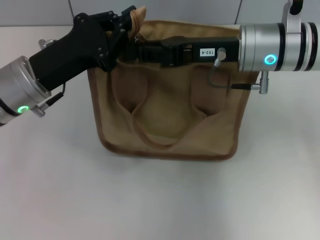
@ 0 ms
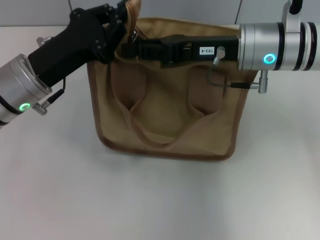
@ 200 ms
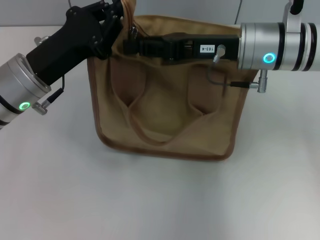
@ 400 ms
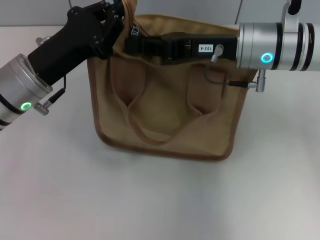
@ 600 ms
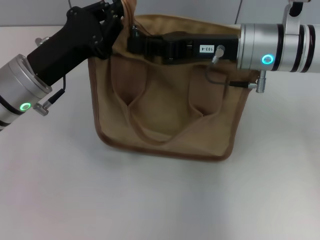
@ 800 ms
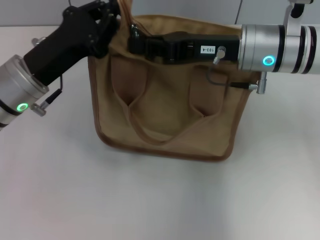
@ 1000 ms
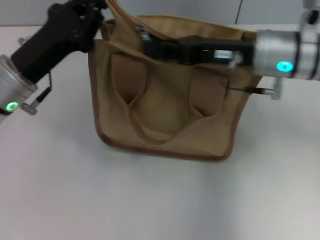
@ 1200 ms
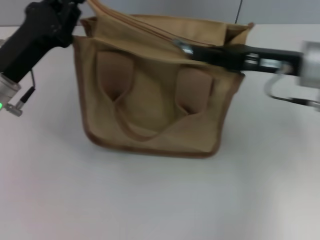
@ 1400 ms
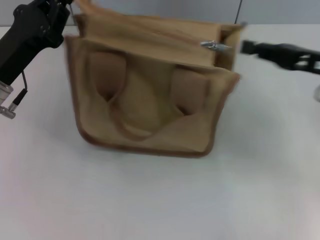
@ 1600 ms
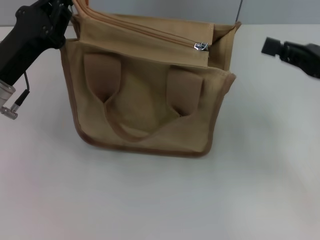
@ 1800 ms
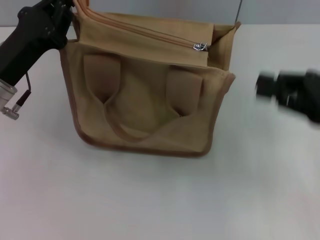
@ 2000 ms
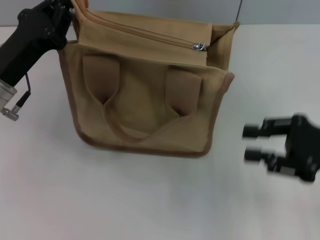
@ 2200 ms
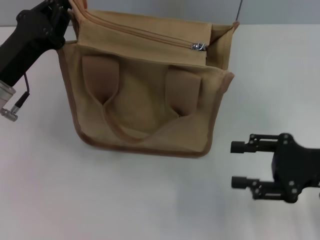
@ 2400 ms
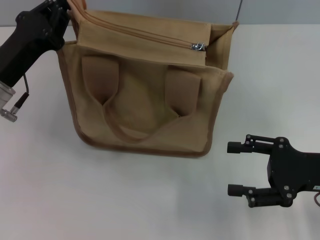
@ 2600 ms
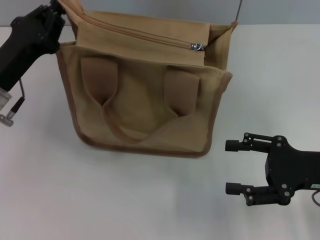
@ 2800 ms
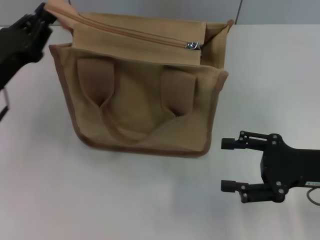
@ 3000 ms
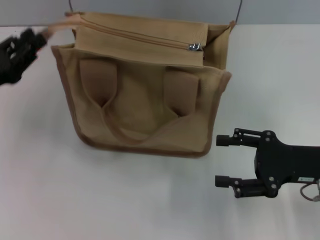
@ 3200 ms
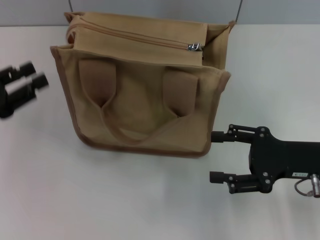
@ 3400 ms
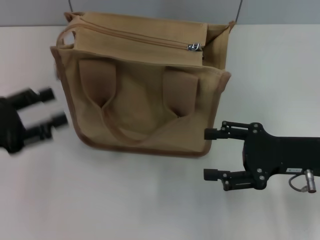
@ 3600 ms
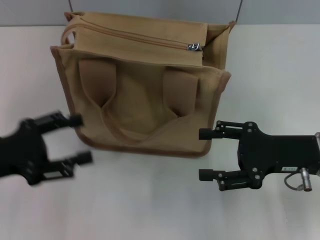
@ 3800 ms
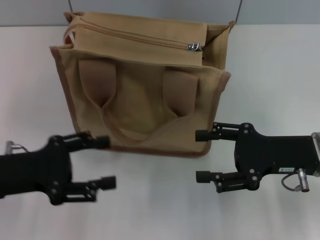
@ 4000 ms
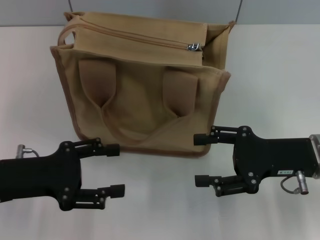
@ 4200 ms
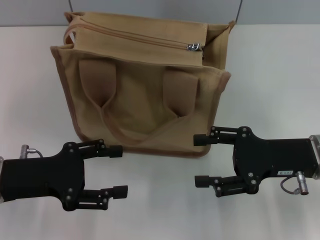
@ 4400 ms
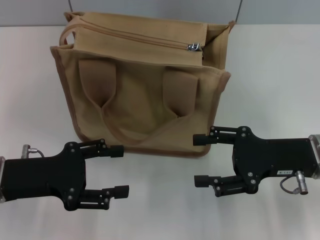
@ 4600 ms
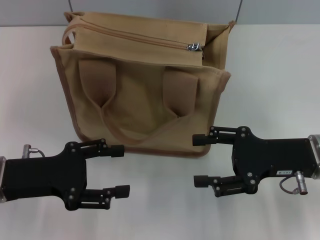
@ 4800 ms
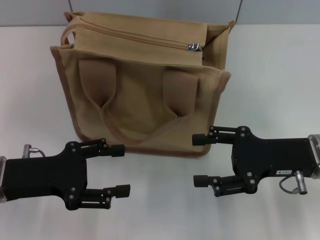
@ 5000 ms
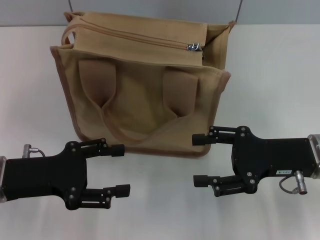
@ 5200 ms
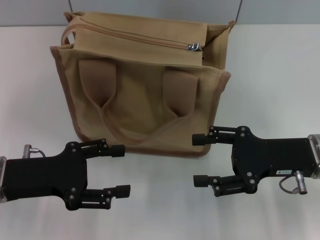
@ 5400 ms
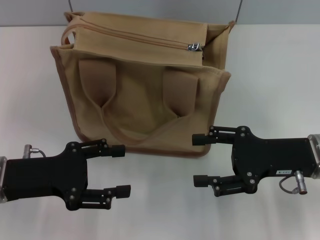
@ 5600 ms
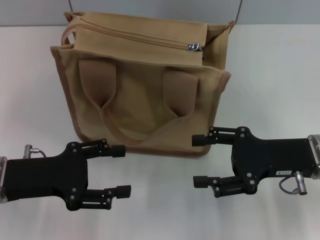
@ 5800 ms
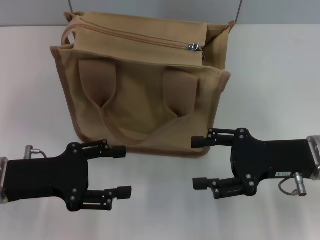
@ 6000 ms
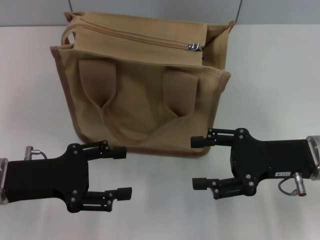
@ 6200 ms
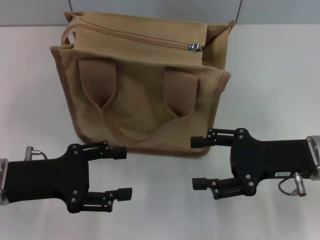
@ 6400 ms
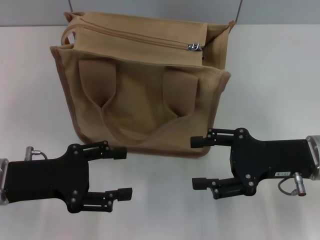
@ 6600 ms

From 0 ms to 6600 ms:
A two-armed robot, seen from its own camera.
Step, from 1800 ms to 3200 ms: Grab the zipper with your left hand.
From 0 ms to 1600 ms: The right gripper travels to the right by some 15 cm, and closes up.
From 1600 ms to 3200 ms: The left gripper moves to the left, roughly 10 cm, while the right gripper is displaced backward and downward by some 10 cm, and opens its fingers.
From 3200 ms to 5000 ms: The left gripper is displaced to the right by approximately 5 cm, and opens up.
From 5000 ms to 6600 ms: The two grippers keep their place.

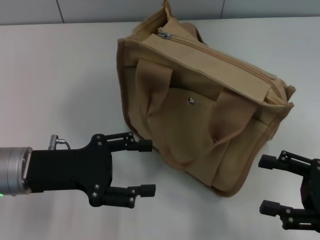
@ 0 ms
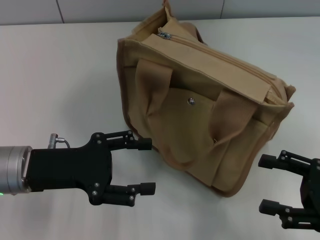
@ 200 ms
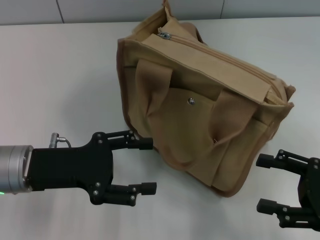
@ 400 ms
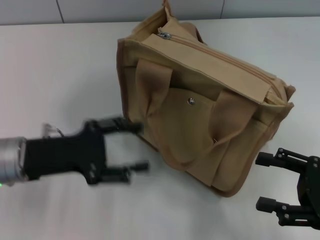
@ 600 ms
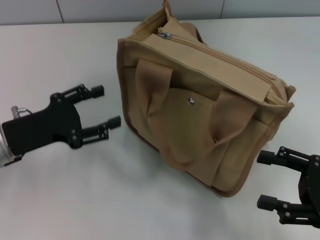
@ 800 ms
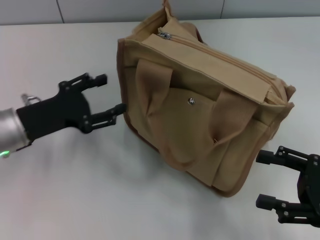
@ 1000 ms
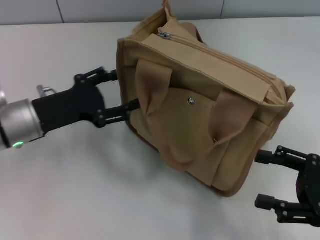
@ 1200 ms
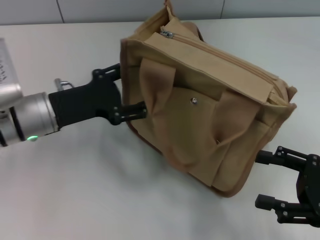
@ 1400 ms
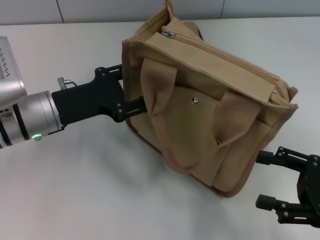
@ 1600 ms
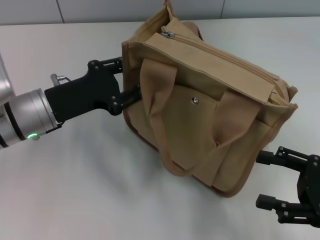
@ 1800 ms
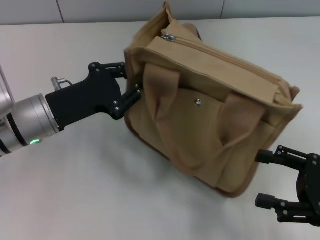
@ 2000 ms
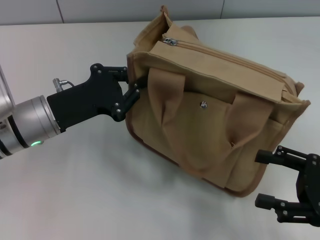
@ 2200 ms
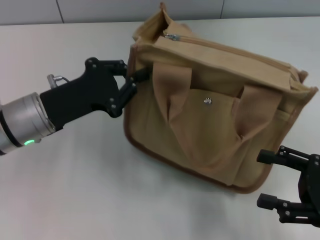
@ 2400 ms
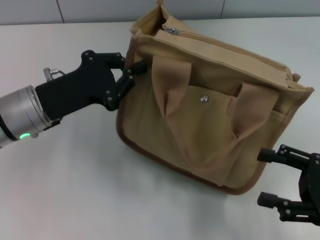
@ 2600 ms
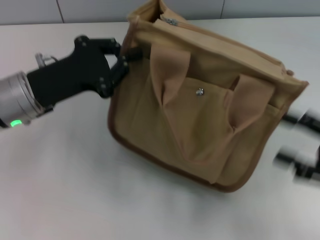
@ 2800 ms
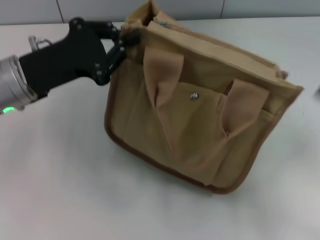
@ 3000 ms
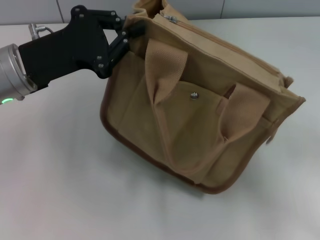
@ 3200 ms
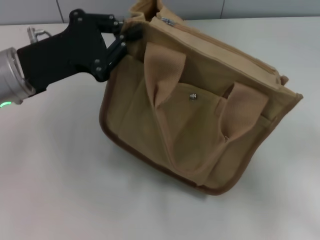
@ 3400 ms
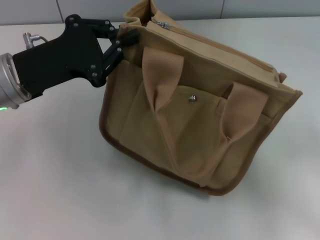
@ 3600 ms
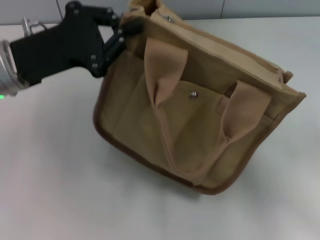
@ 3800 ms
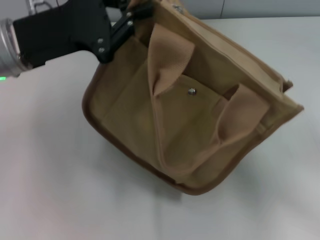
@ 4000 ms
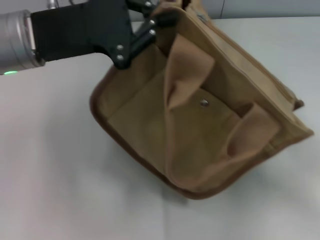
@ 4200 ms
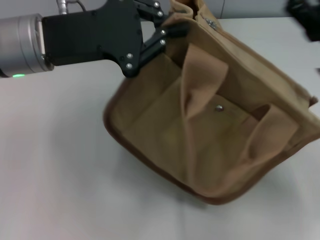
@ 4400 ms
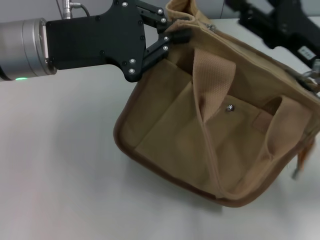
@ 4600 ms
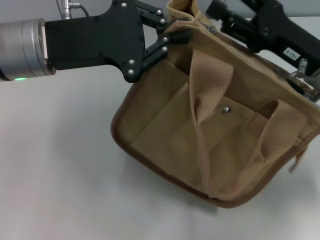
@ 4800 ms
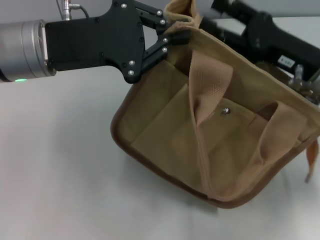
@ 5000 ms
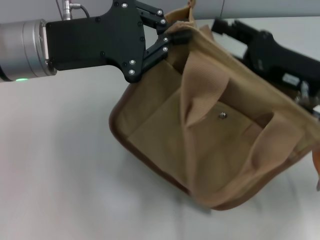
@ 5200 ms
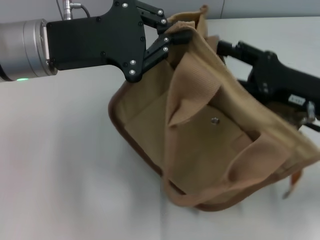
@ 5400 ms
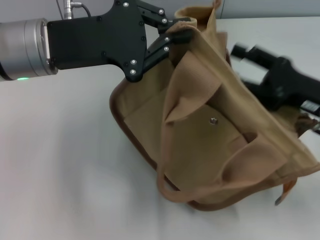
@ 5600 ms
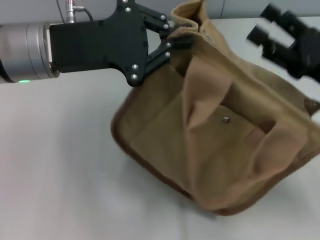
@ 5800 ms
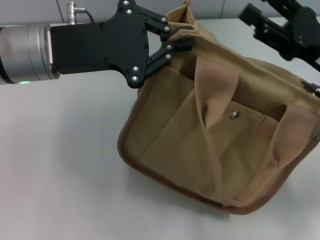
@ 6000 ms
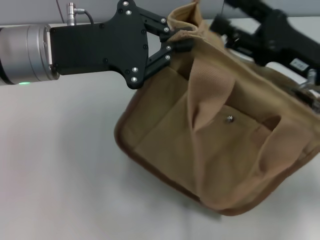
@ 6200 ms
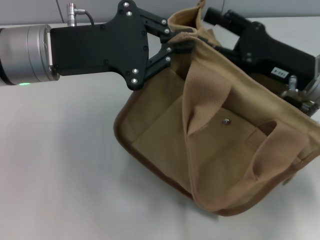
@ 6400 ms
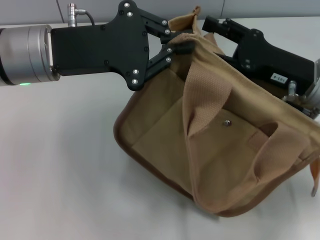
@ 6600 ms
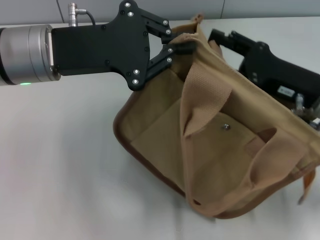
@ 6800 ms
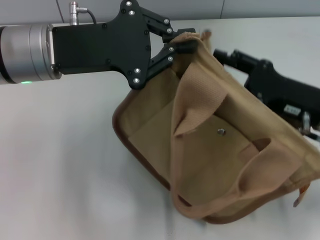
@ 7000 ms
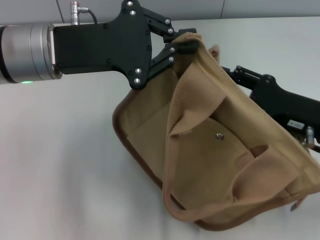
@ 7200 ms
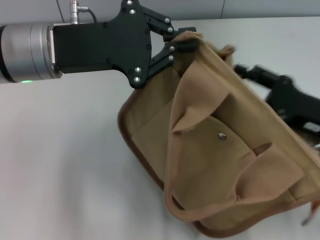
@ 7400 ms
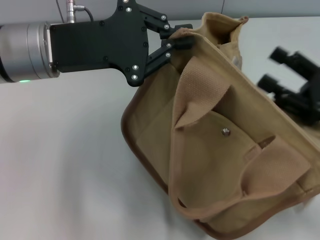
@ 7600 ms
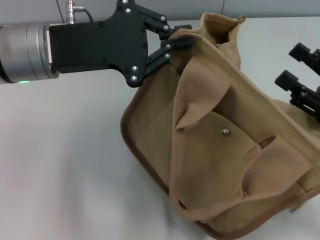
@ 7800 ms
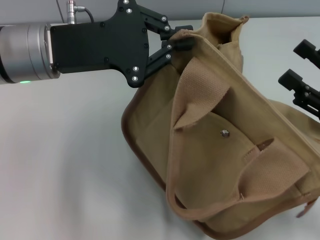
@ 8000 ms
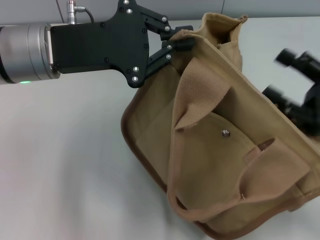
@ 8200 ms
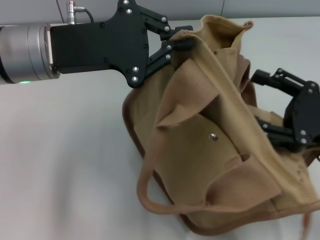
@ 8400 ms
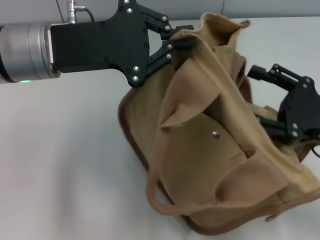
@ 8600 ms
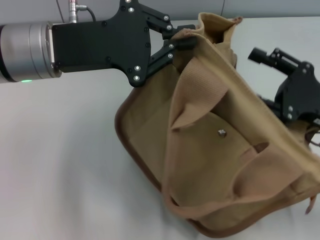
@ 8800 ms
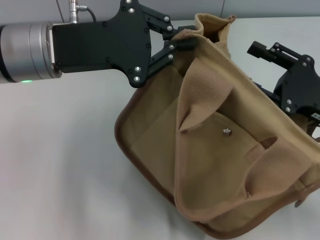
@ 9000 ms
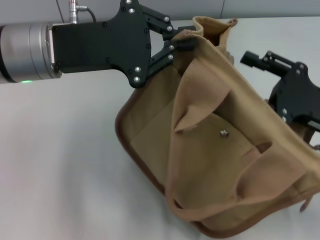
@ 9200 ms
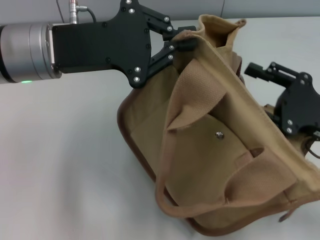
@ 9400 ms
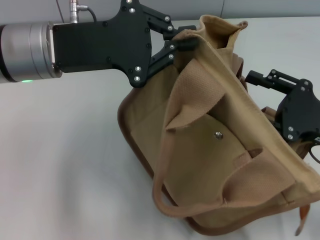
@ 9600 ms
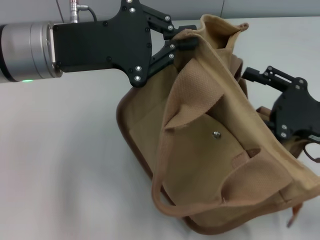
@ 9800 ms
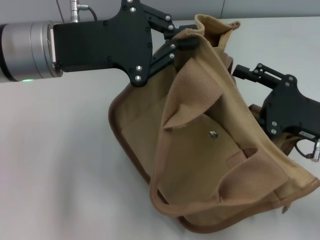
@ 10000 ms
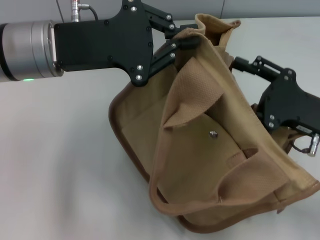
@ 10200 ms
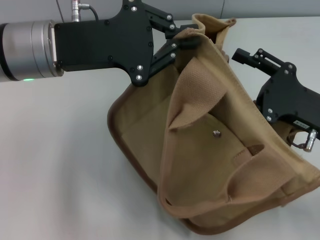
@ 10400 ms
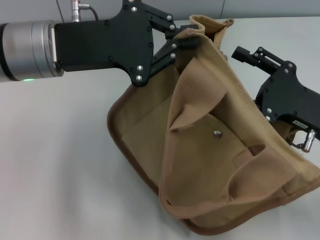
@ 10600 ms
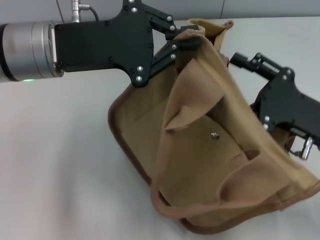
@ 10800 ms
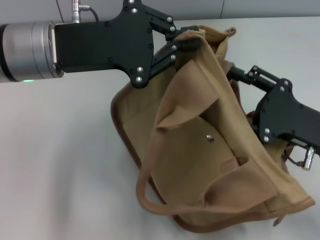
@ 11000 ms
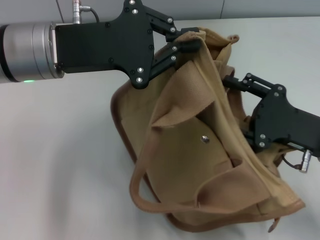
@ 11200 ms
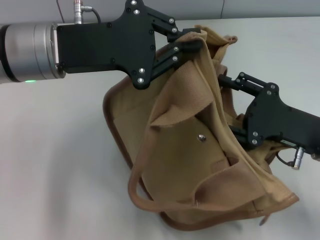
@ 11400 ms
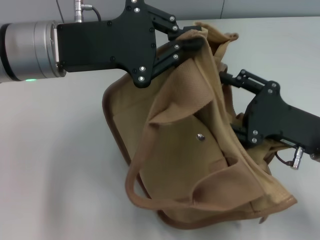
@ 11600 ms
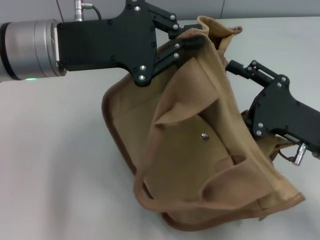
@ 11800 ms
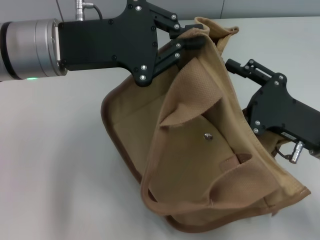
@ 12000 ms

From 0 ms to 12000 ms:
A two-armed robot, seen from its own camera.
From 0 ms to 1600 ms: The left gripper goes about 5 cm forward.
From 1600 ms to 3000 ms: The left gripper shifts roughly 5 cm upward, and closes.
From 3000 ms to 4400 ms: The left gripper is displaced upward by some 5 cm. The right gripper moves forward and to the left, about 10 cm.
From 6000 ms to 7600 ms: The right gripper travels backward by approximately 5 cm.
From 7600 ms to 9000 ms: The grippers make only small movements.
From 9000 ms to 12000 ms: The grippers move only a little.

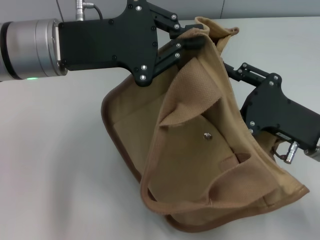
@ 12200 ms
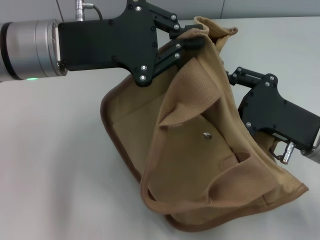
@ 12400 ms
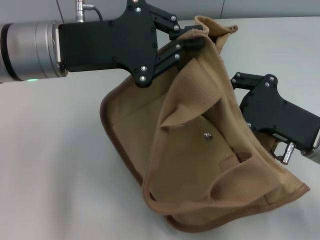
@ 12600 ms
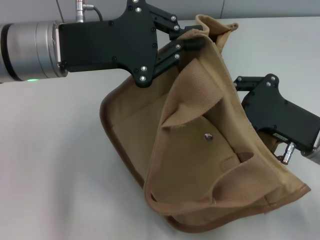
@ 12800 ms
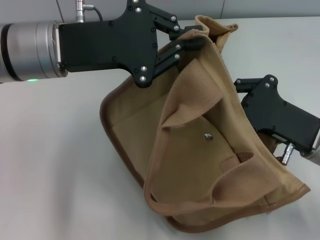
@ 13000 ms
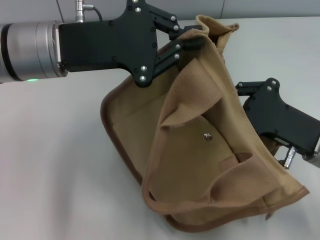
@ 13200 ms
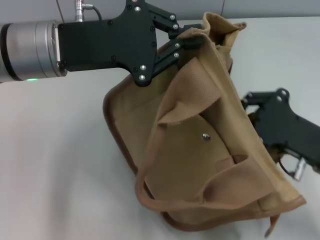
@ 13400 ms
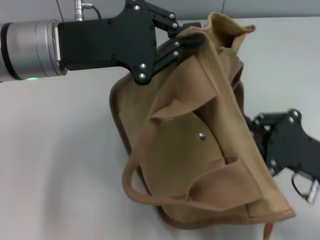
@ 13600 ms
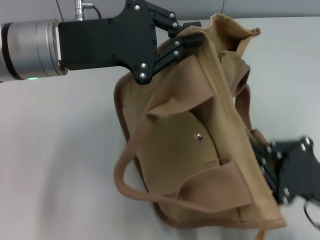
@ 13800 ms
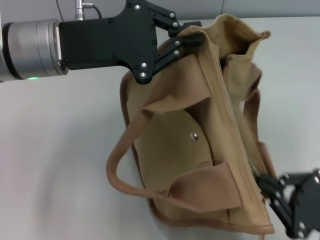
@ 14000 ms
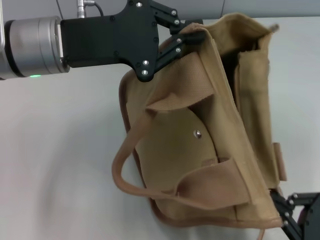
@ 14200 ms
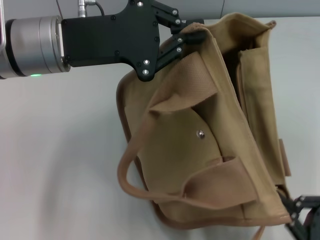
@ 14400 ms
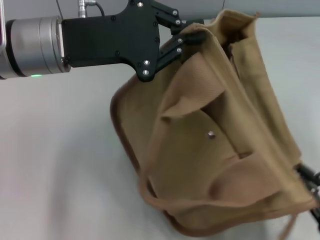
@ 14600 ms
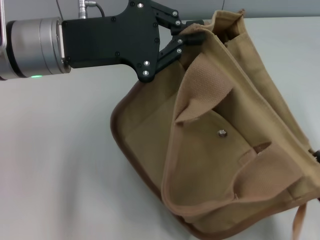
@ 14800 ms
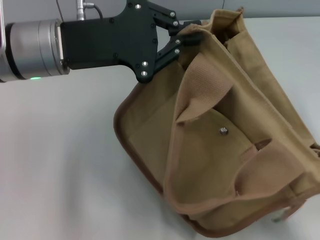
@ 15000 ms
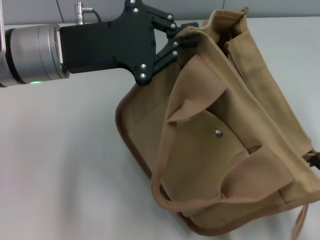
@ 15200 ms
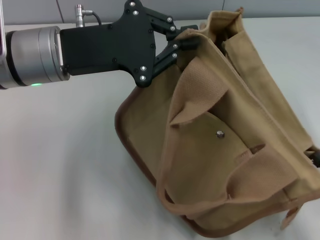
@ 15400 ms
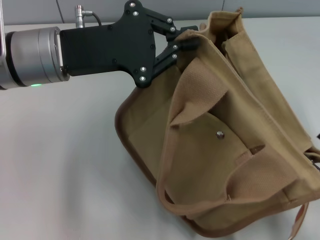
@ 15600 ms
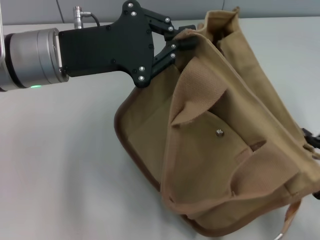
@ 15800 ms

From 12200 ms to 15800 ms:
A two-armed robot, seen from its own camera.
Step, from 12200 ms to 15600 ms: Pull open the zipper with your right hand.
From 12200 ms to 14000 ms: The right gripper heads backward and to the right, covering roughly 15 cm, and closes up.
From 14000 ms to 15800 ms: The right gripper opens its fingers.
